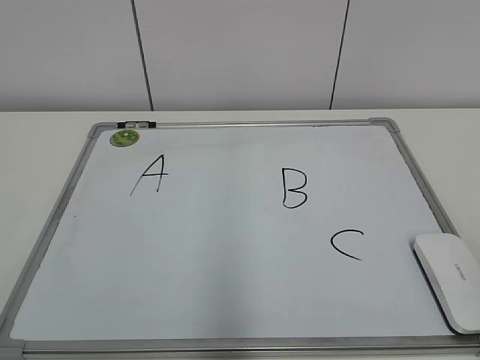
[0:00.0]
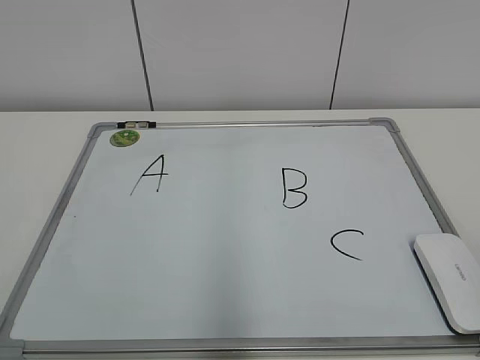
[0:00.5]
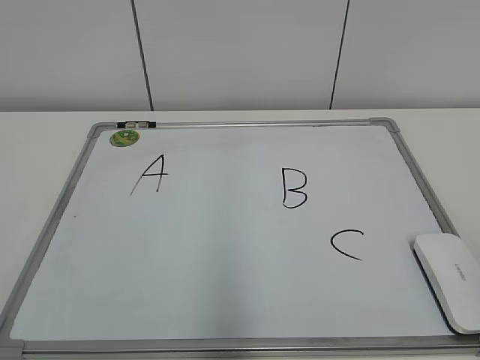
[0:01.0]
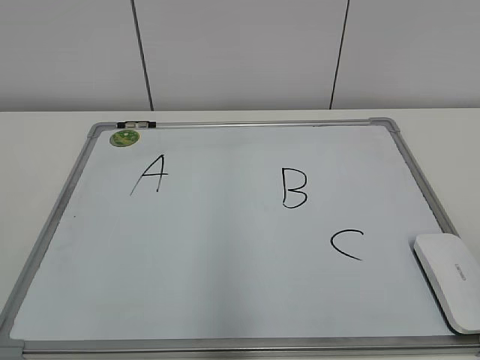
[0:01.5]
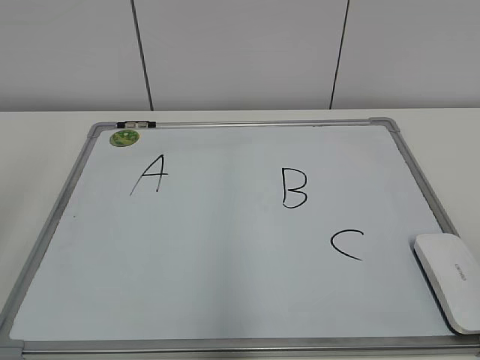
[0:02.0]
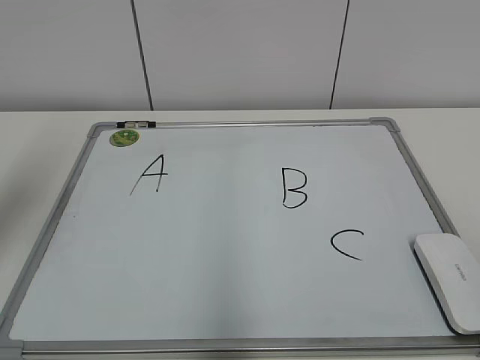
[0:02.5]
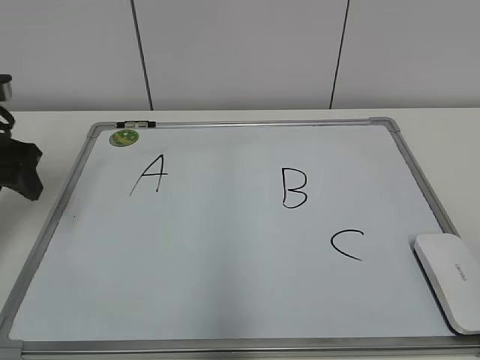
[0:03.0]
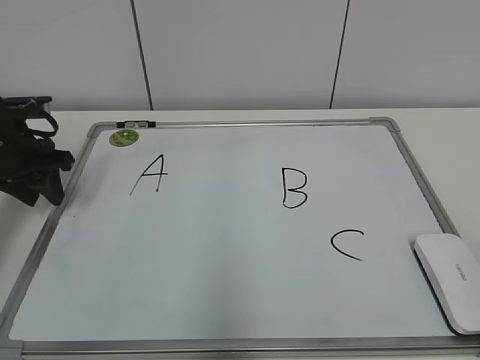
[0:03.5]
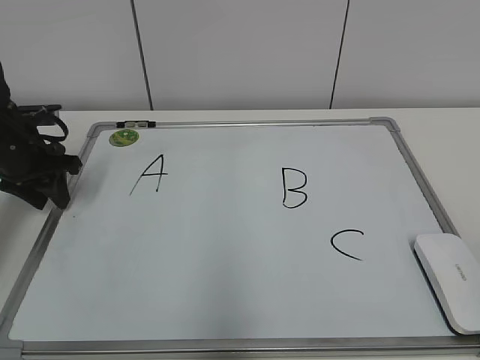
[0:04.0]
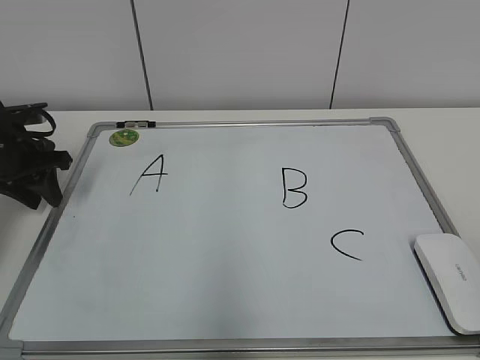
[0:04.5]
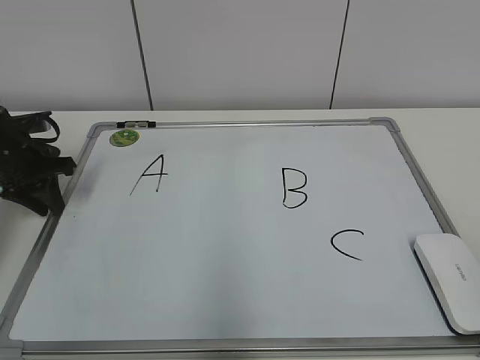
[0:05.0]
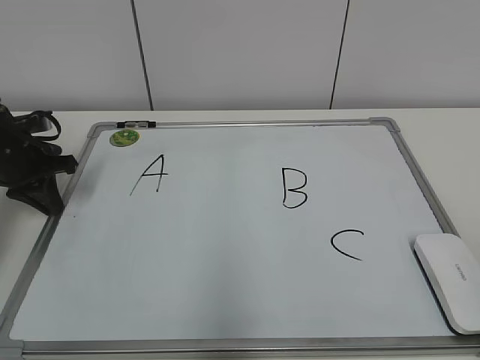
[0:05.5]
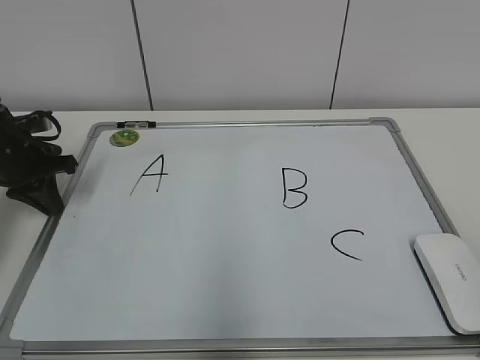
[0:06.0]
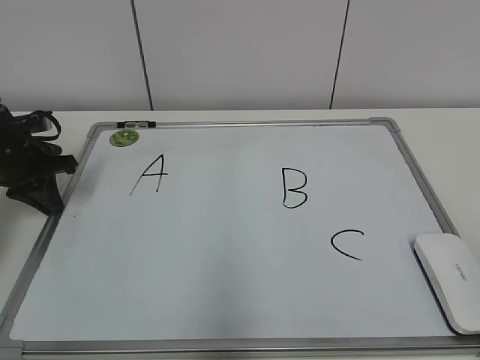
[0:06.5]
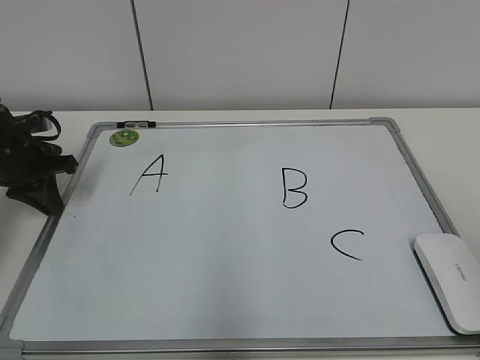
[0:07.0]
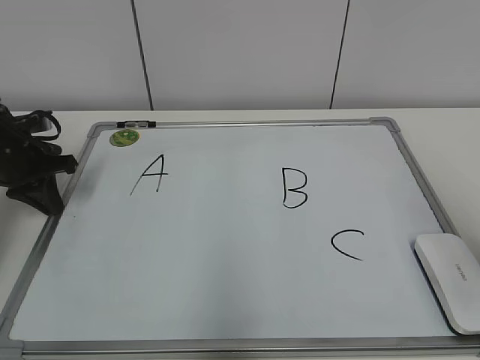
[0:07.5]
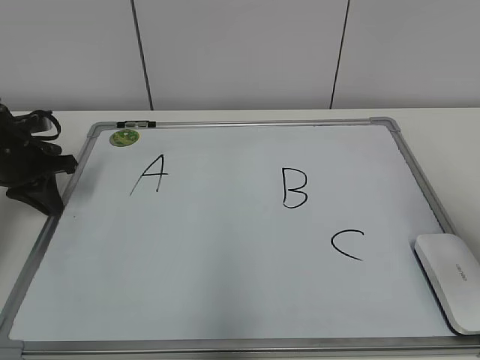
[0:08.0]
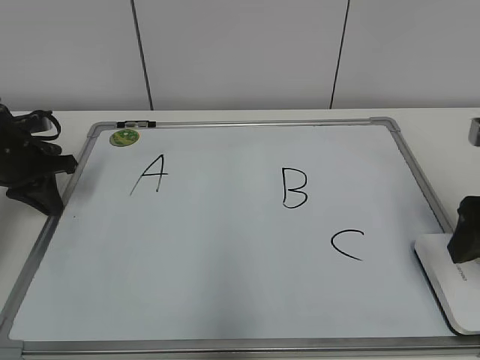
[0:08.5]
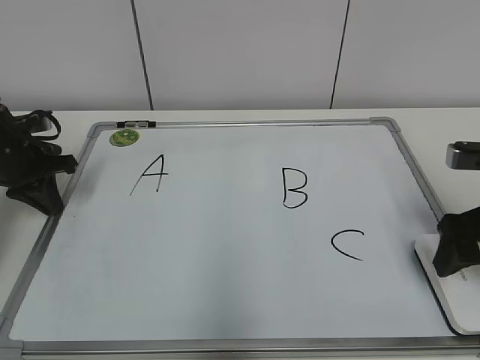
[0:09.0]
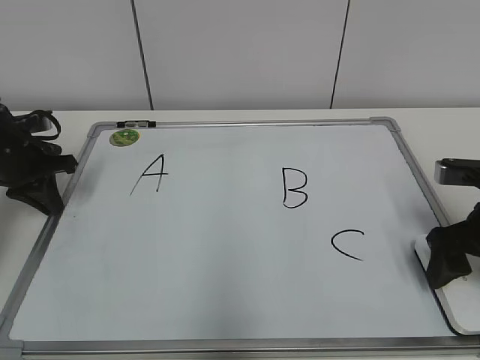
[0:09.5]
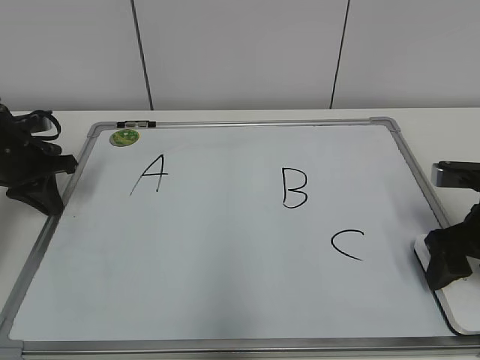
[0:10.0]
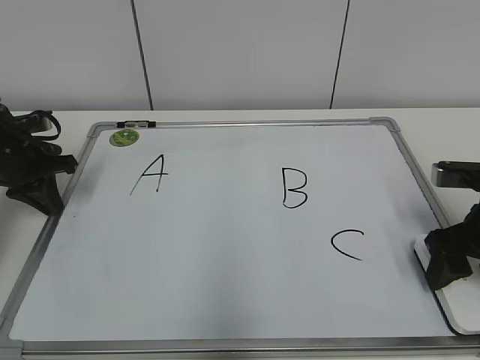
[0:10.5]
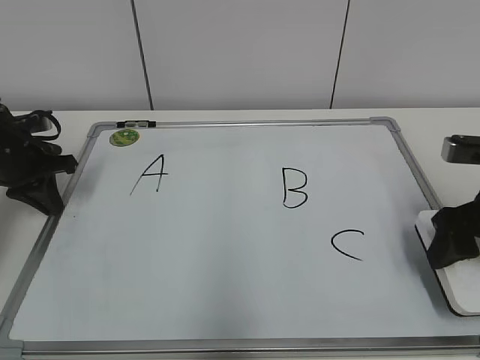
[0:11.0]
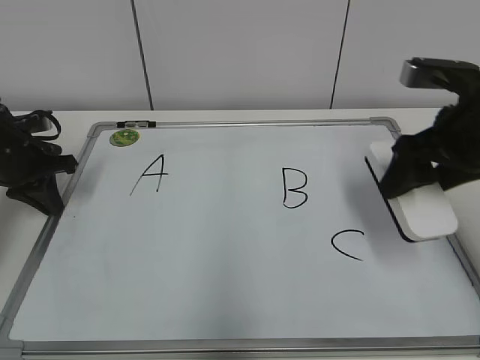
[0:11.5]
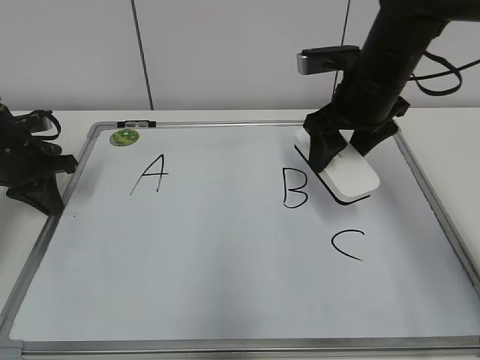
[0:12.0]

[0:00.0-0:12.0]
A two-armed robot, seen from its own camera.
Task of the whole recording: pick up the eraser on the blackboard and erase the letter "B".
Step, 0:00.0 to 0:05.0: Hold the drawing board steady with your left hand.
Step, 0:05.5 to 0:10.5: Grab the eraser with your right hand.
0:02.0 to 0:04.0: The left gripper goes approximately 35 cm forward and downward, and closes its fingers.
0:04.0 to 0:06.0: The left gripper closes its fingers.
0:06.0 to 0:08.0: The right gripper heads forward, covering some 20 cm.
0:08.0 to 0:10.0: The right gripper is displaced downward and forward by roughly 15 cm, and opens, then closes once more.
0:10.0 to 0:12.0: The right gripper moves to the left, forward and upward, about 20 cm.

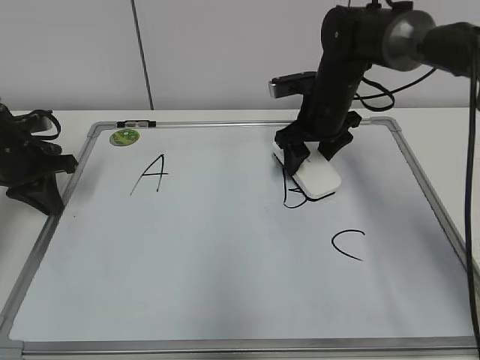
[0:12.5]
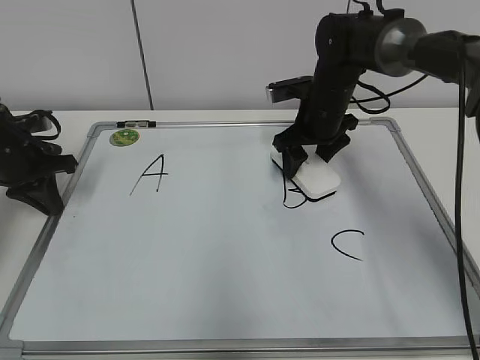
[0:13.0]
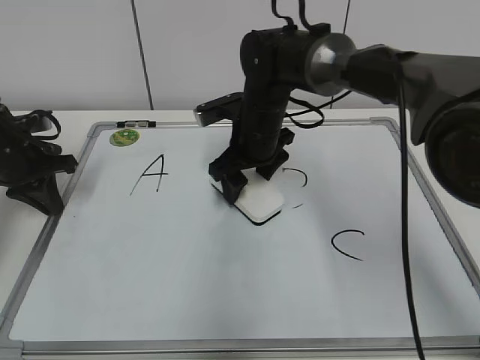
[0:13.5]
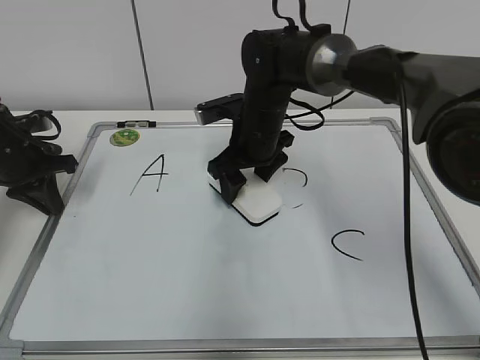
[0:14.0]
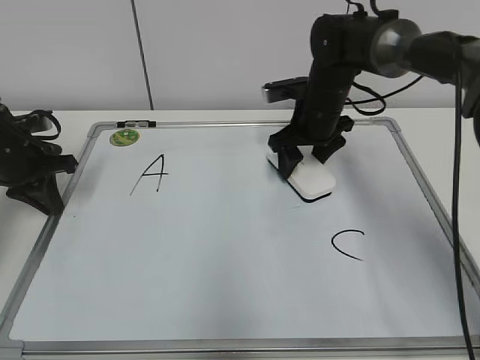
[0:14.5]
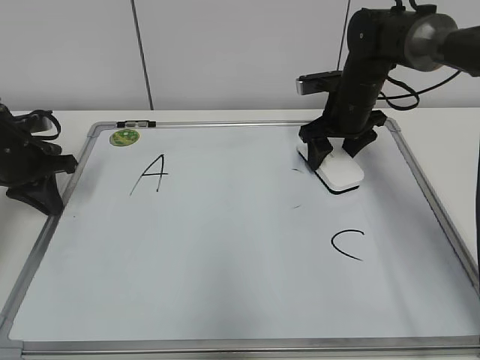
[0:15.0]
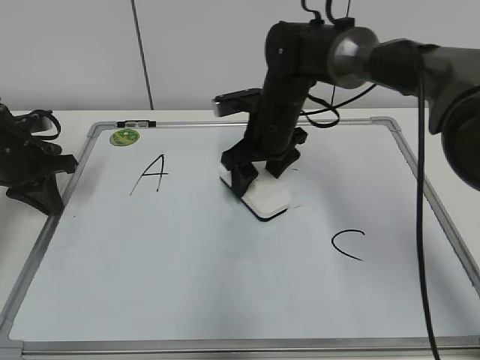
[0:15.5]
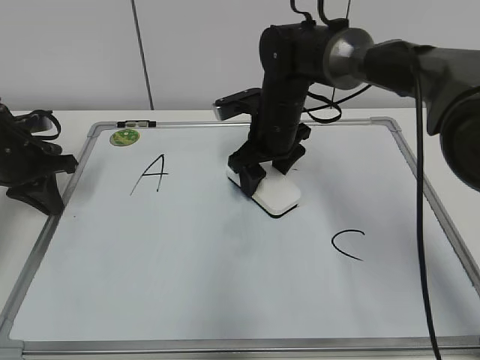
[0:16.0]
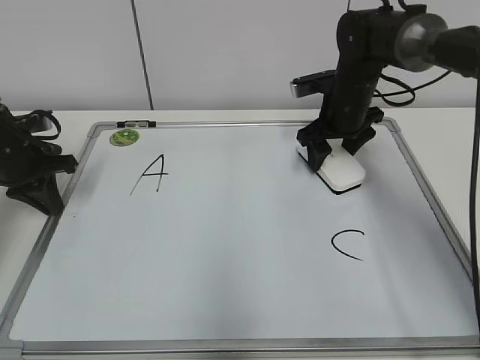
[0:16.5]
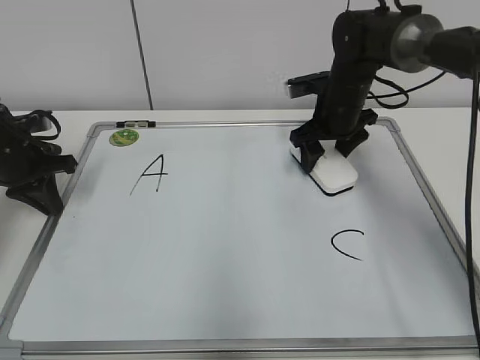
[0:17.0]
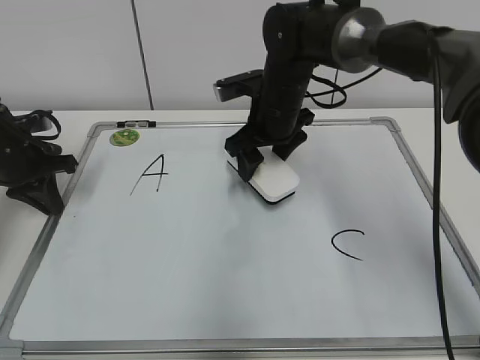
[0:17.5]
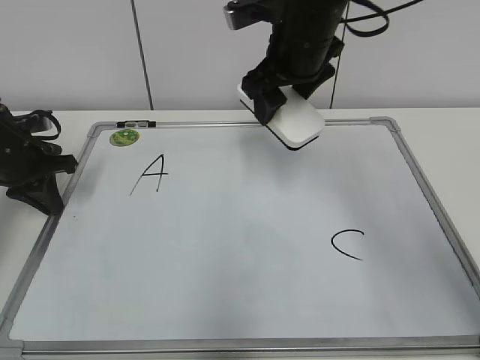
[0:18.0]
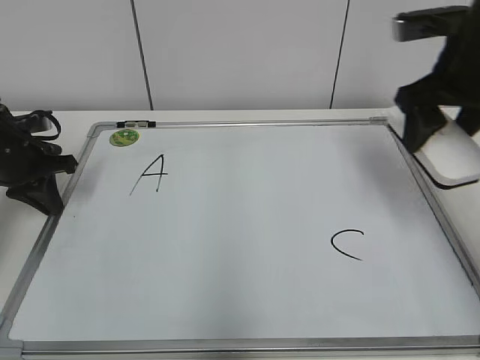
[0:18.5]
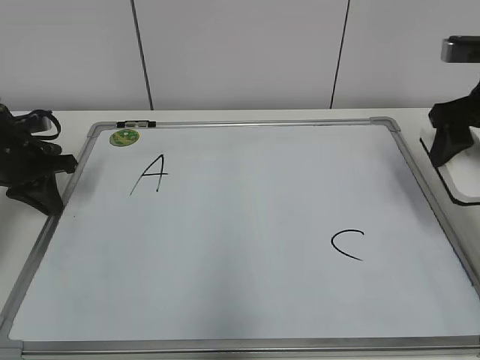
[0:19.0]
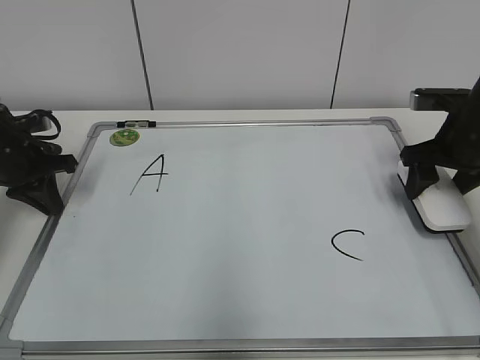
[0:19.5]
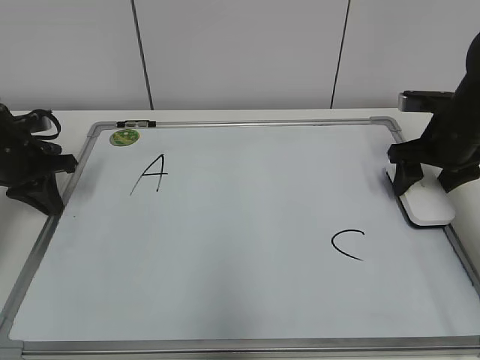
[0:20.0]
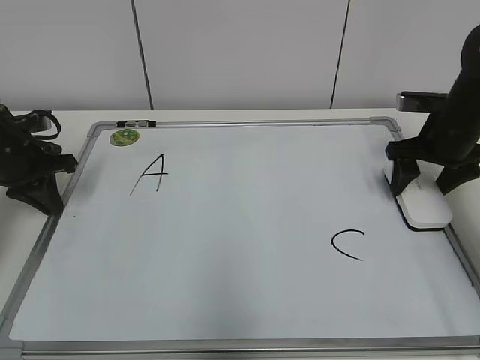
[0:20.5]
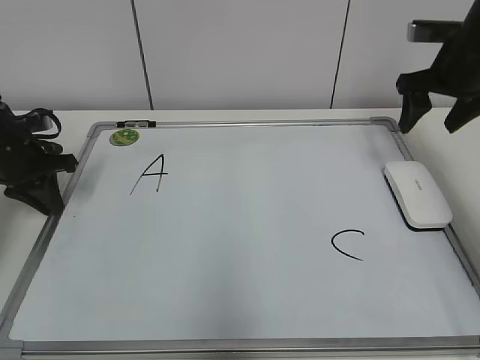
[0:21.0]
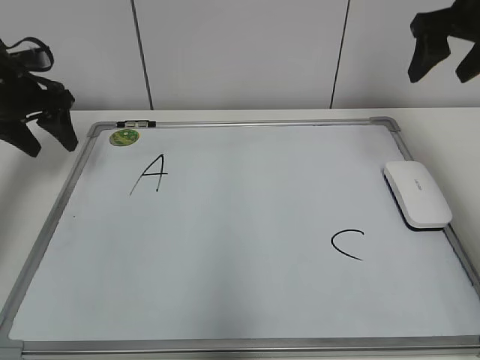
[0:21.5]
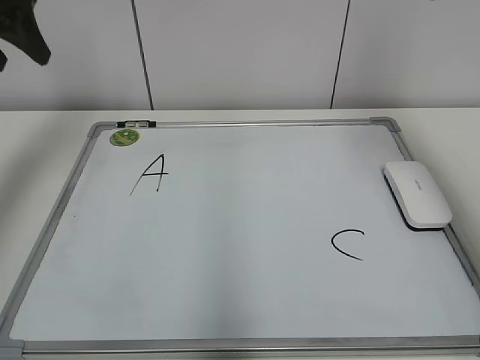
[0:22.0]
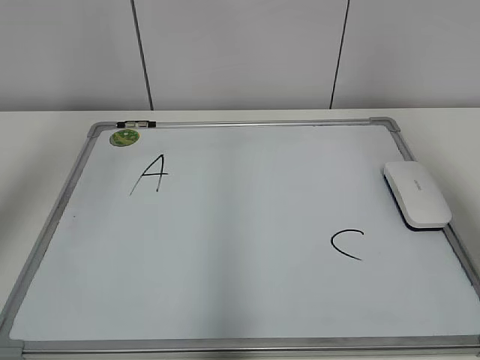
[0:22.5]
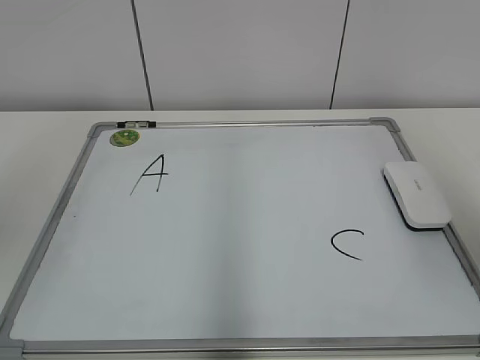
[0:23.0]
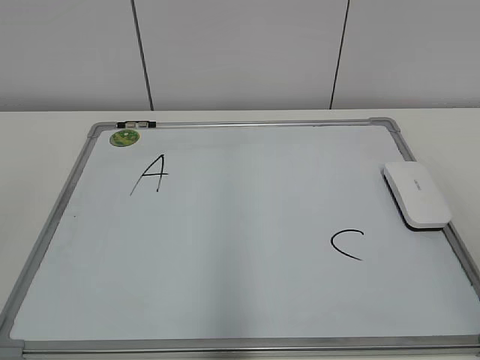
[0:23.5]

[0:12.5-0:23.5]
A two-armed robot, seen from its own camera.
Task of the whole recording: pick up the eraser on the blackboard and erase the letter "B".
Step, 0:12.5 to 0:17.0: Erase the letter B with your right hand.
Step, 0:17.5 to 0:20.5: Put down the eraser with your right hand.
0:12.5 to 0:14.5: The right gripper moves approximately 10 cm to the left and comes back.
0:14.5 to 0:16.0: The right gripper moves to the left, roughly 5 cm.
0:16.0 to 0:18.0: The right gripper heads upward, covering roughly 15 cm.
0:18.0 to 0:20.0: The right gripper shifts approximately 25 cm to the right and downward.
0:20.0 to 0:21.5: The right gripper is displaced upward by approximately 15 cm, and opens its fingers. Meanwhile the left gripper goes approximately 10 cm upward, and opens its fingers.
0:21.5 to 0:23.5: Both grippers travel together backward, some 40 cm.

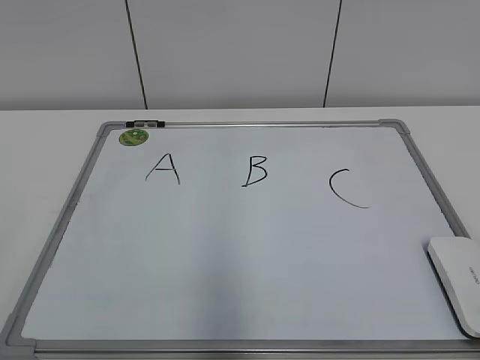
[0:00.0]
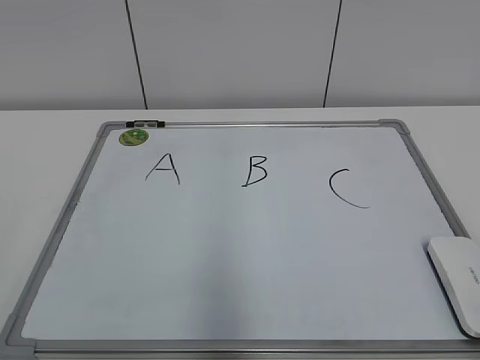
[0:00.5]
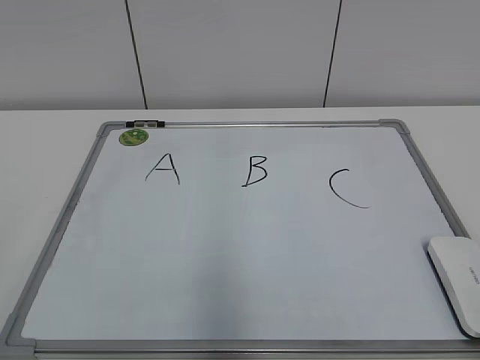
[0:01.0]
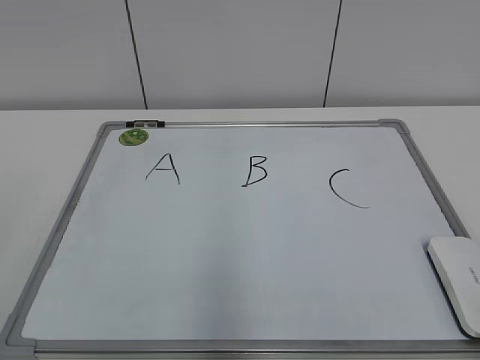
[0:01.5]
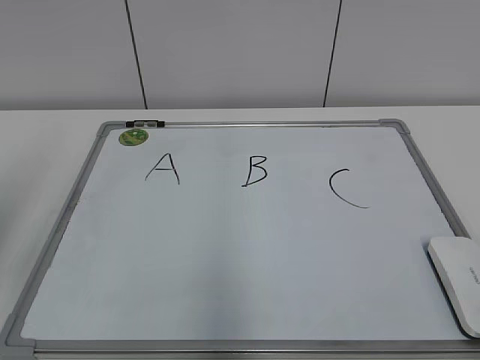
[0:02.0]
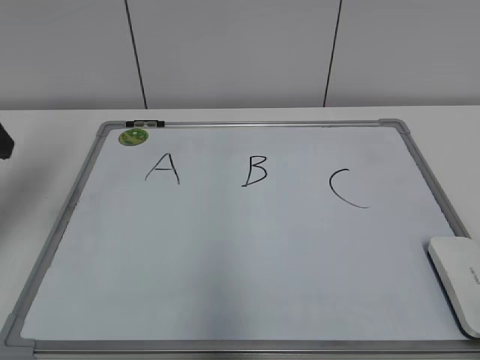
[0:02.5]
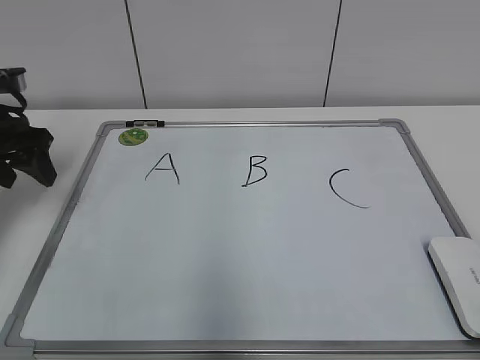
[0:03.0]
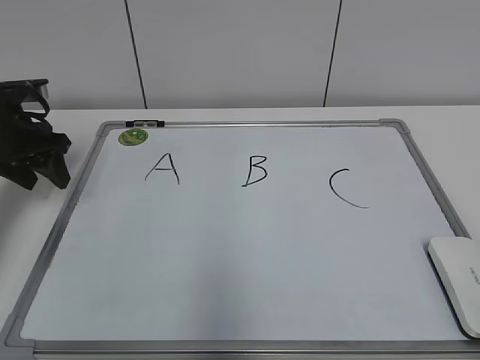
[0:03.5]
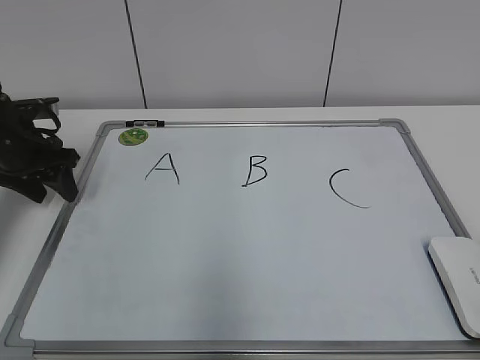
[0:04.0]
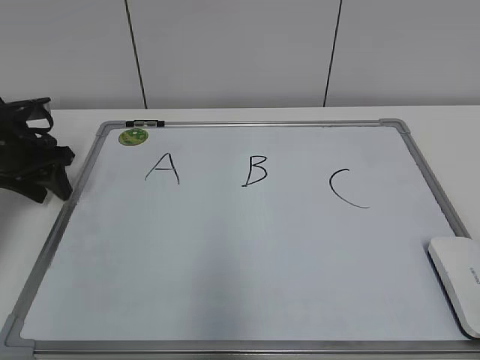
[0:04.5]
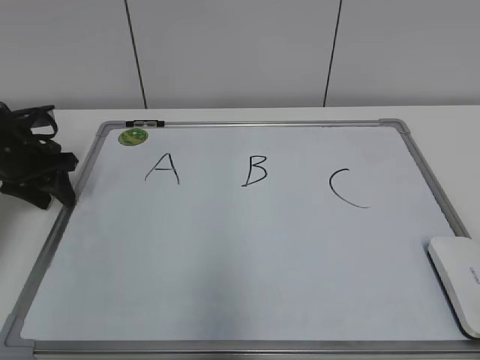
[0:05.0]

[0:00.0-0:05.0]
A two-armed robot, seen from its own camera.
Task of the whole recording: pick up the eraser on the blackboard and erase the letter "B".
0:02.5 to 0:05.0: The left gripper moves downward and forward, approximately 20 cm.
